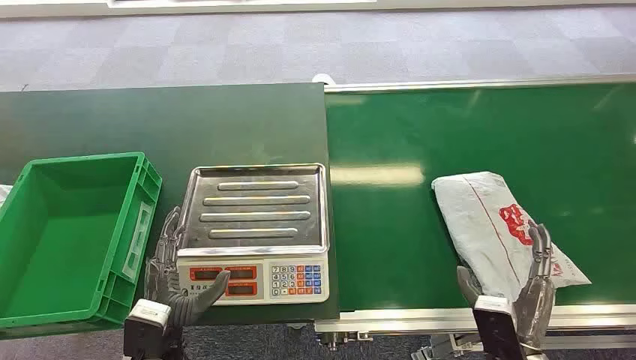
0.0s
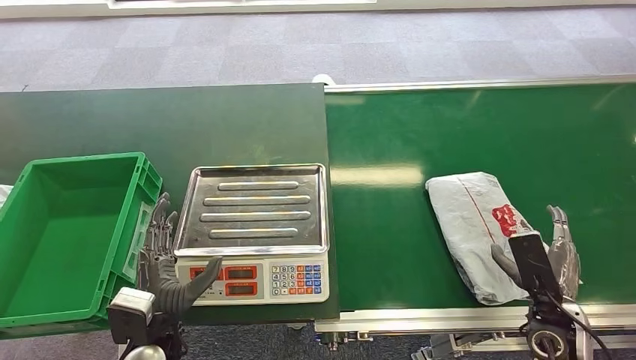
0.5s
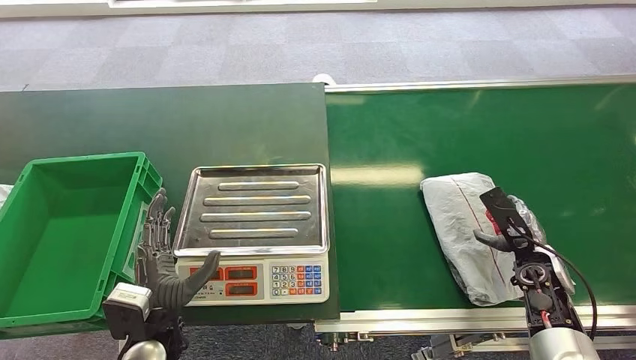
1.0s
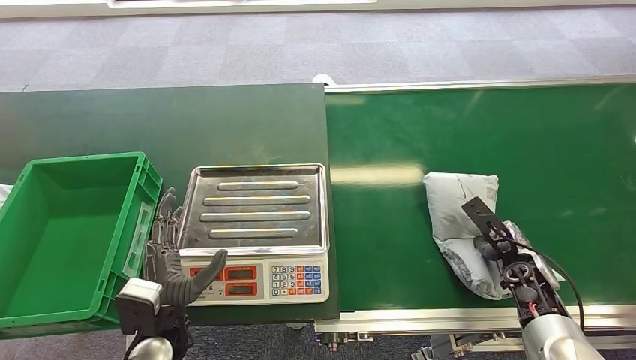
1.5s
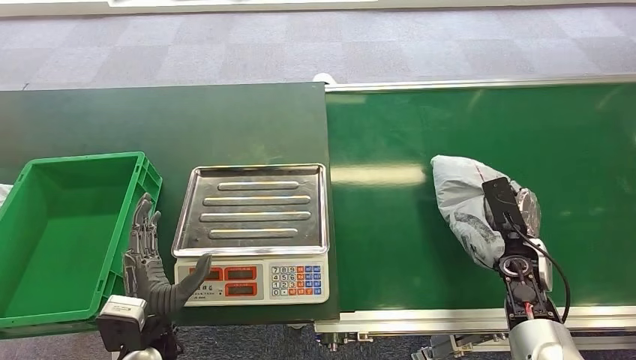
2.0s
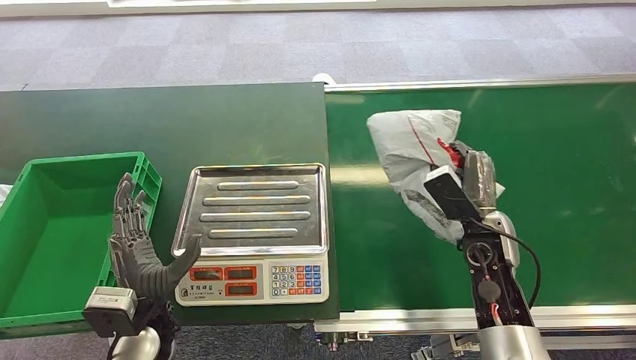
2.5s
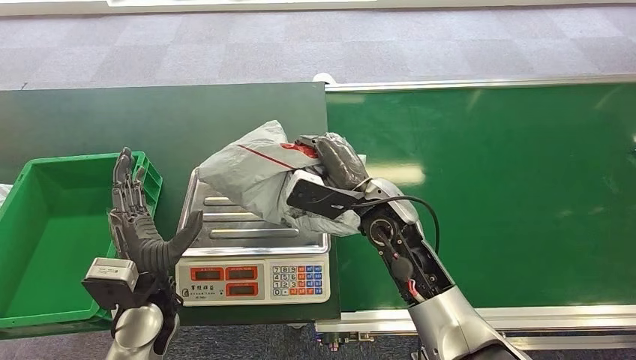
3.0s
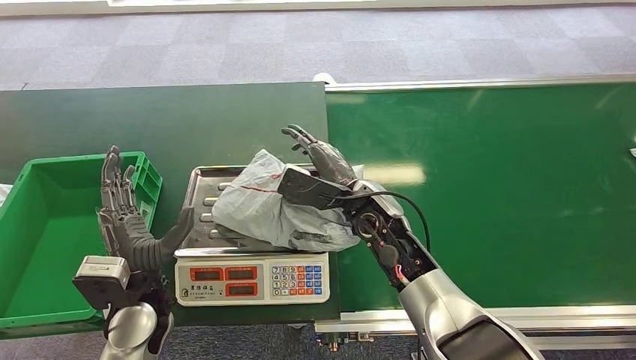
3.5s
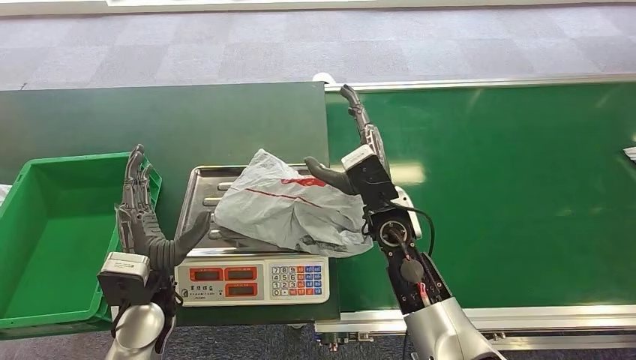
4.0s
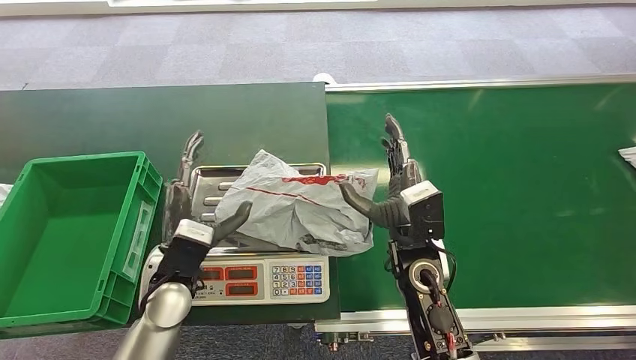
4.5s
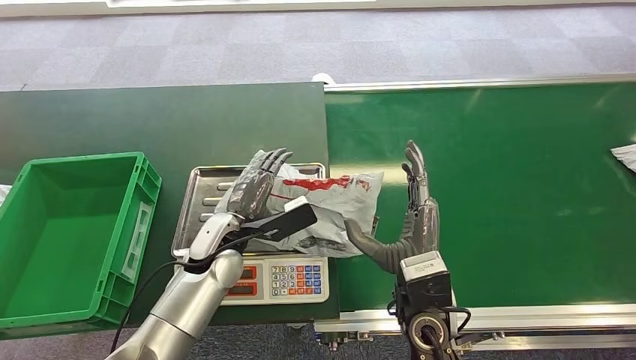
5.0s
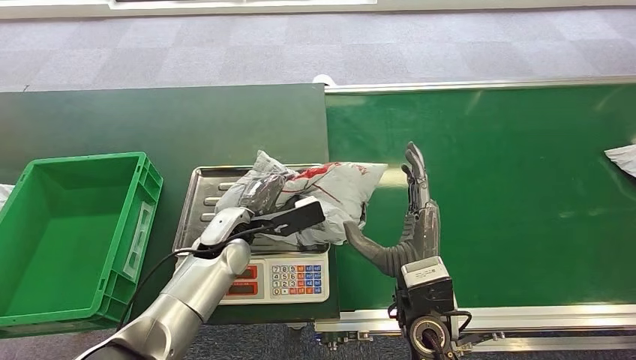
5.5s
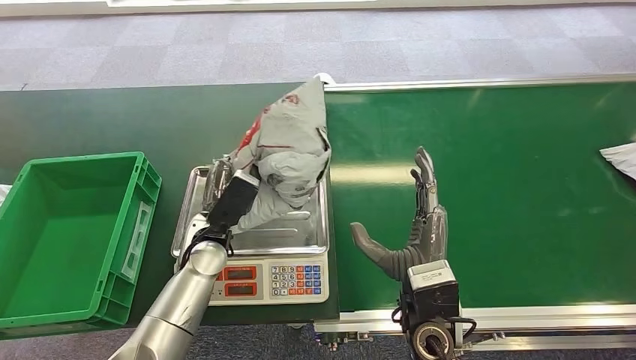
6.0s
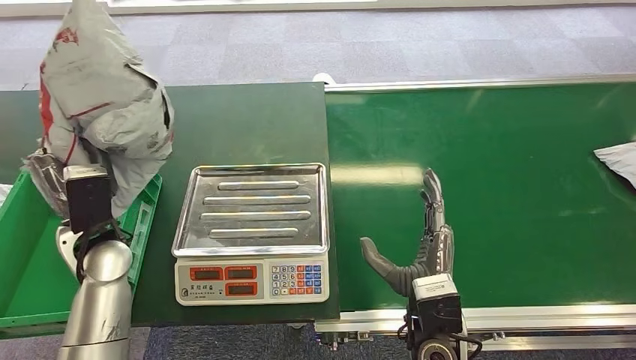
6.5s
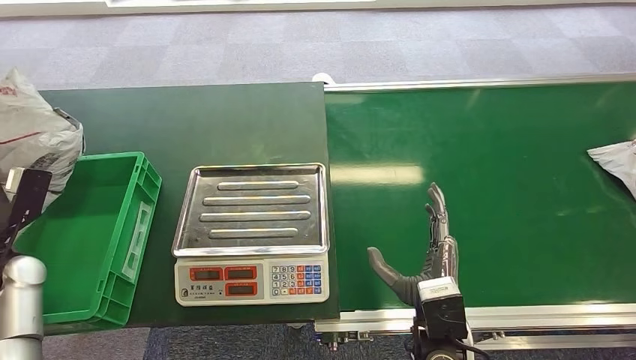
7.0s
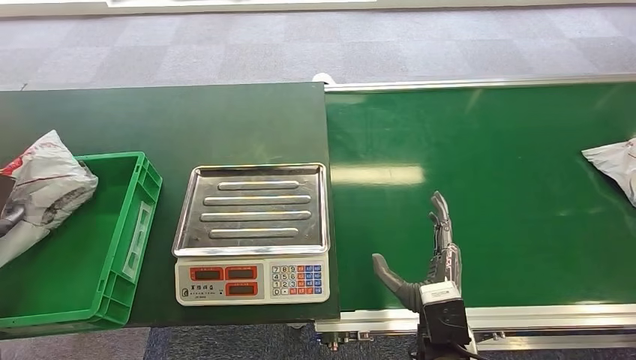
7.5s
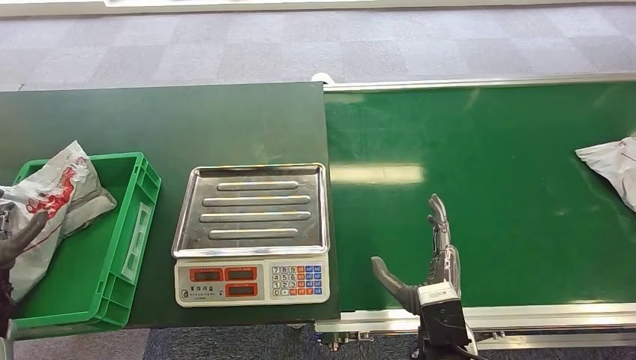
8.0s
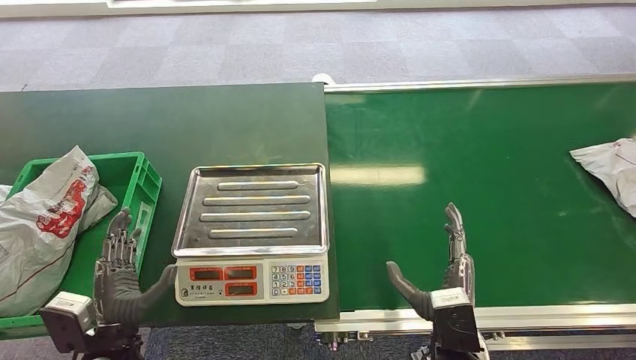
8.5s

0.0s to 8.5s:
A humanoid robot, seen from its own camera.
Step, 0.0s to 2.5s: Pick up the package from the conveyor belt.
Step, 3.0s to 4.5s: Place the package onto the inbound machine.
Step, 5.5s to 6.5s: Pick up the package from the inbound machine.
Step, 7.0s to 8.5s: Place the package into the parcel locker.
